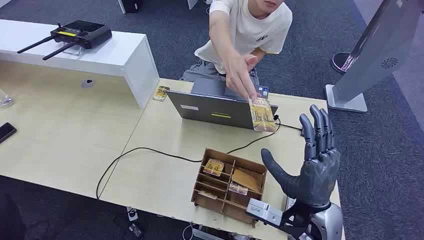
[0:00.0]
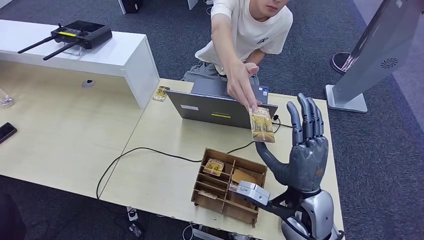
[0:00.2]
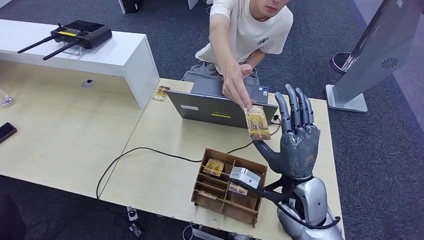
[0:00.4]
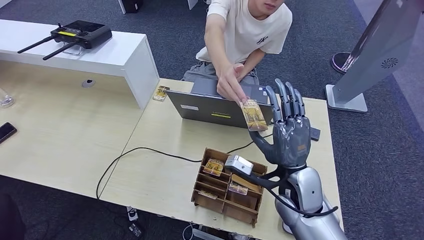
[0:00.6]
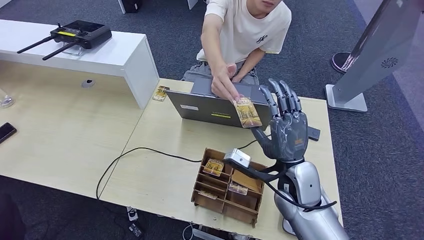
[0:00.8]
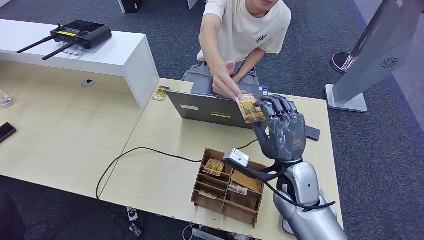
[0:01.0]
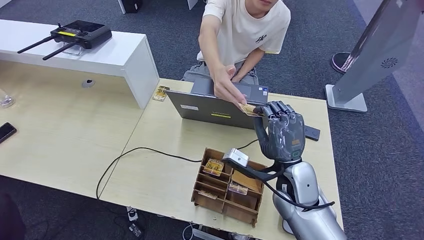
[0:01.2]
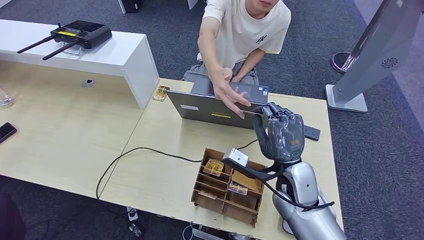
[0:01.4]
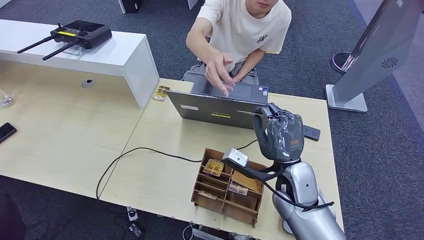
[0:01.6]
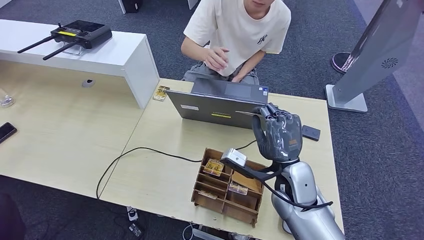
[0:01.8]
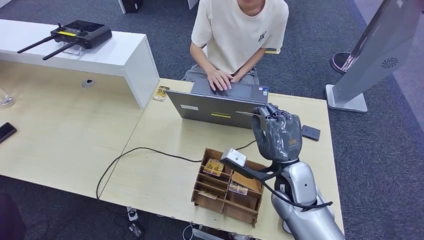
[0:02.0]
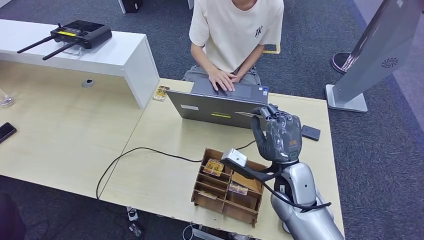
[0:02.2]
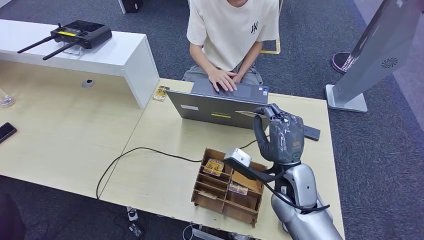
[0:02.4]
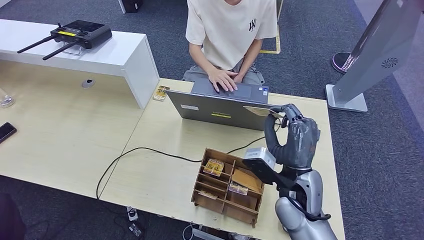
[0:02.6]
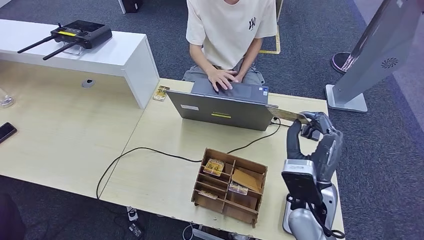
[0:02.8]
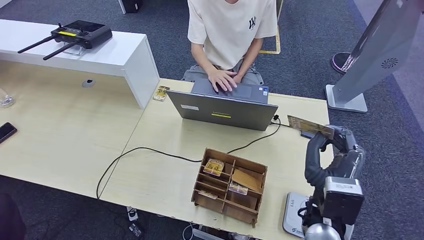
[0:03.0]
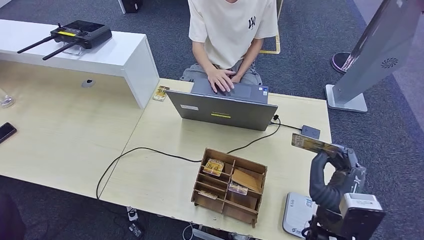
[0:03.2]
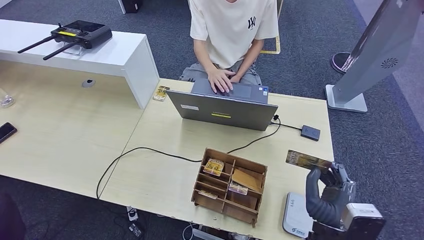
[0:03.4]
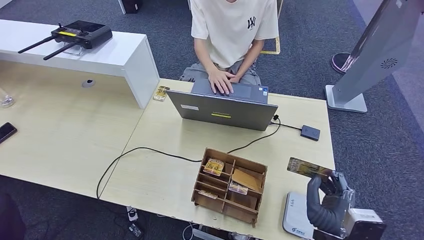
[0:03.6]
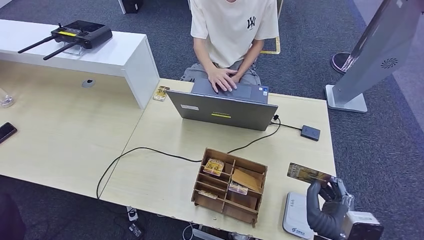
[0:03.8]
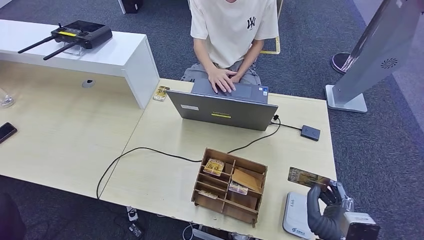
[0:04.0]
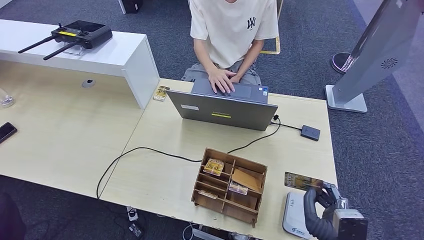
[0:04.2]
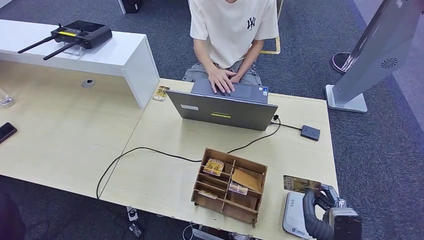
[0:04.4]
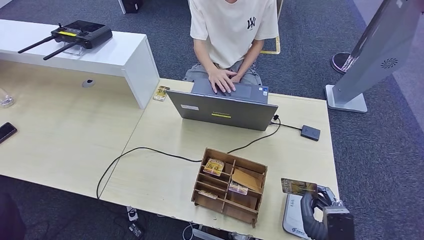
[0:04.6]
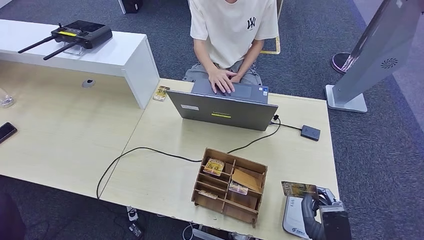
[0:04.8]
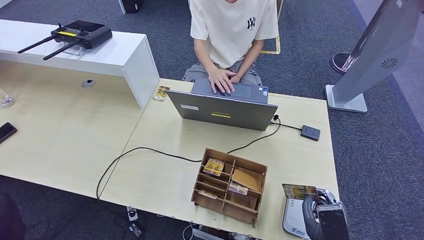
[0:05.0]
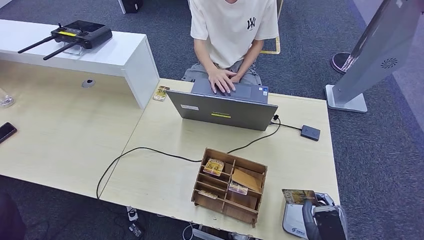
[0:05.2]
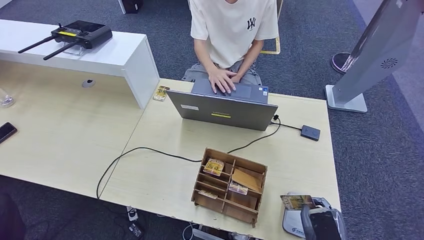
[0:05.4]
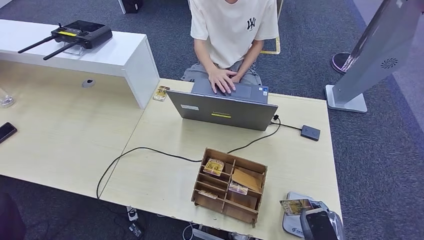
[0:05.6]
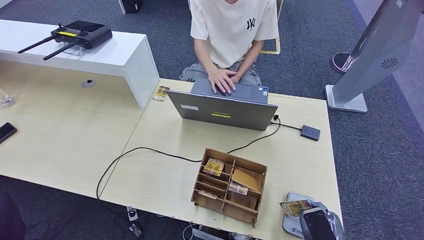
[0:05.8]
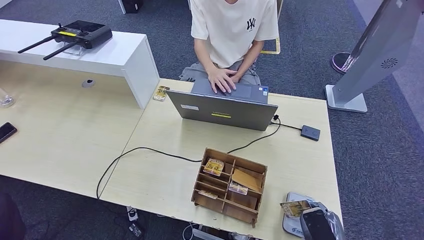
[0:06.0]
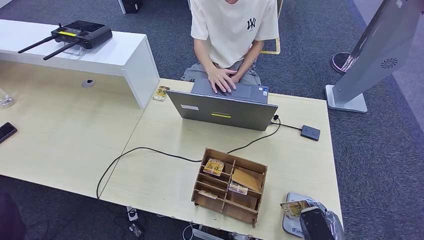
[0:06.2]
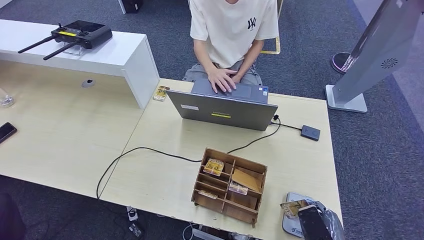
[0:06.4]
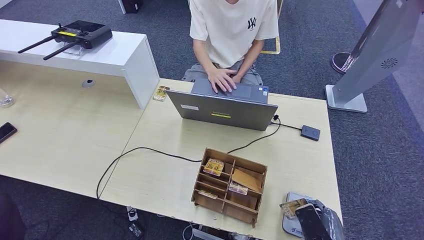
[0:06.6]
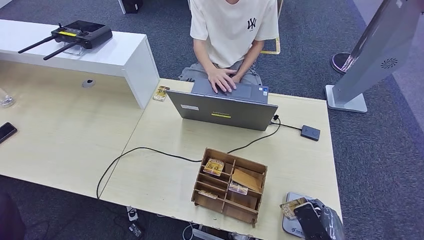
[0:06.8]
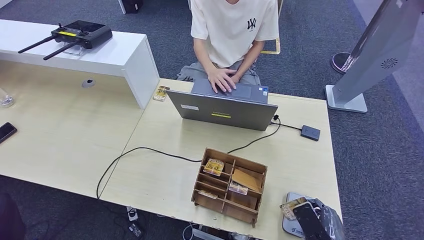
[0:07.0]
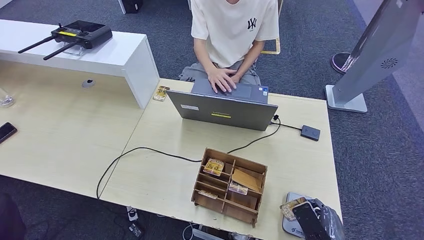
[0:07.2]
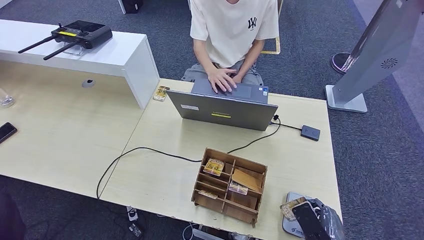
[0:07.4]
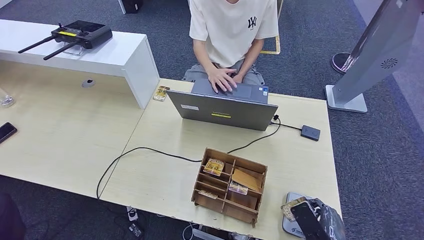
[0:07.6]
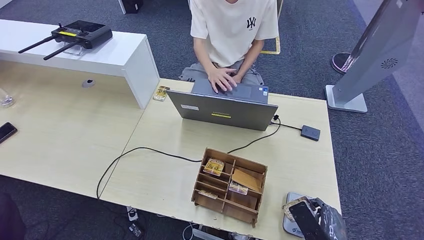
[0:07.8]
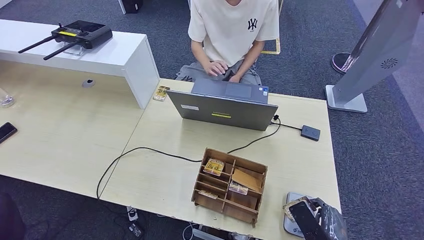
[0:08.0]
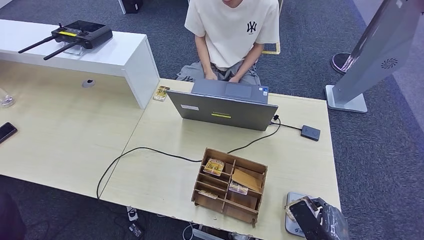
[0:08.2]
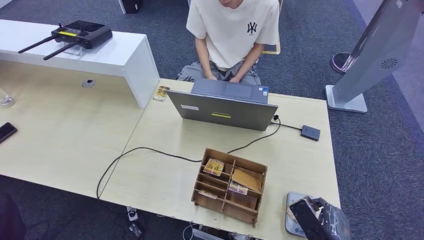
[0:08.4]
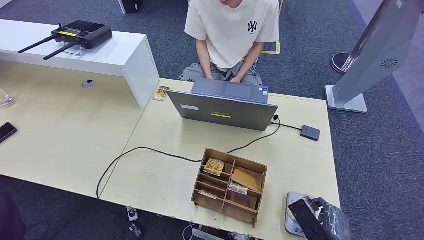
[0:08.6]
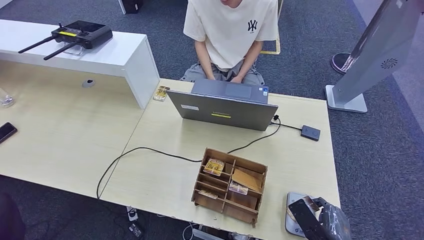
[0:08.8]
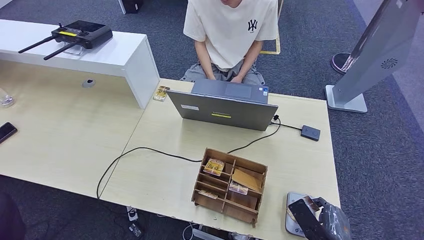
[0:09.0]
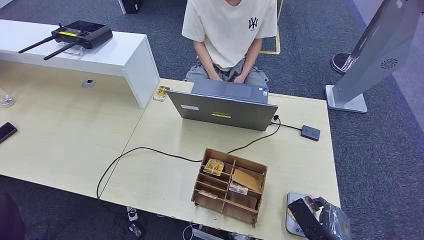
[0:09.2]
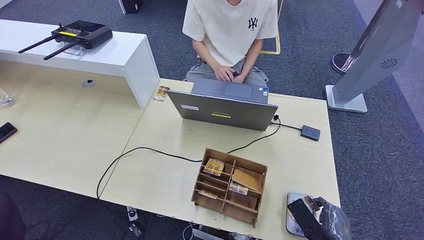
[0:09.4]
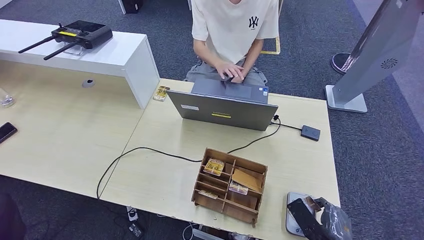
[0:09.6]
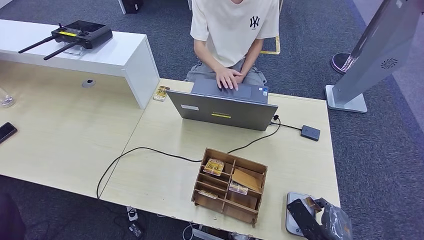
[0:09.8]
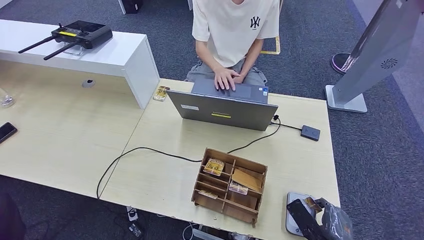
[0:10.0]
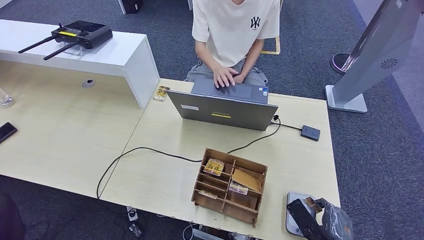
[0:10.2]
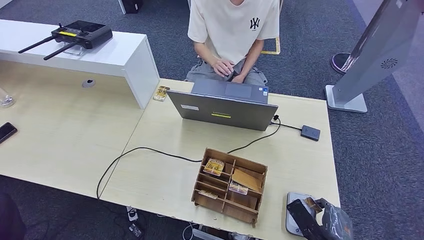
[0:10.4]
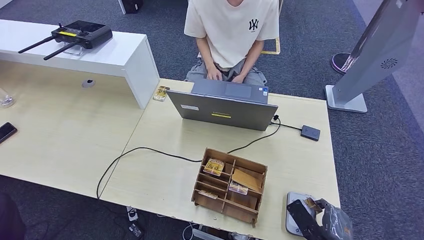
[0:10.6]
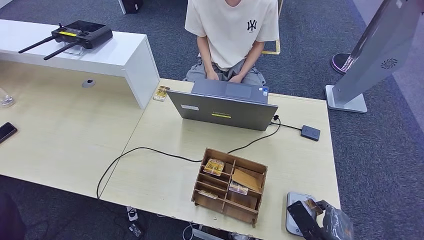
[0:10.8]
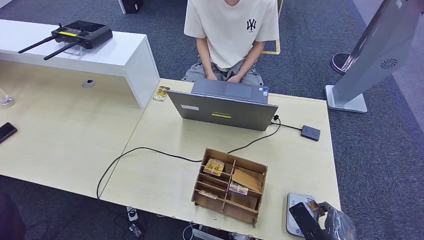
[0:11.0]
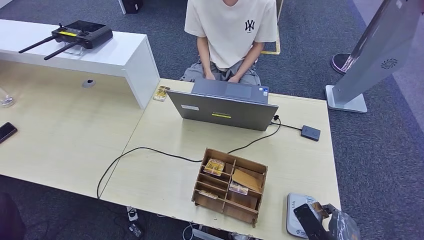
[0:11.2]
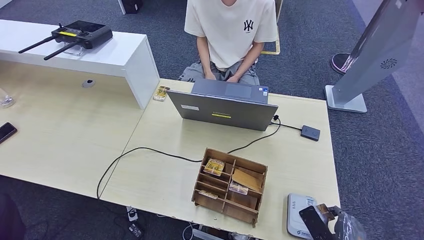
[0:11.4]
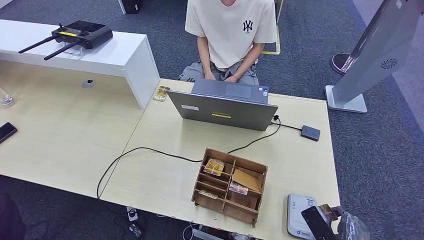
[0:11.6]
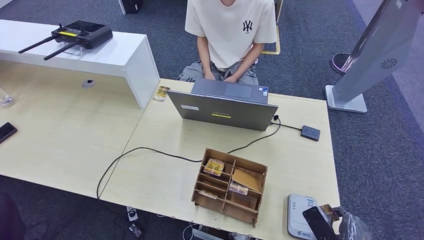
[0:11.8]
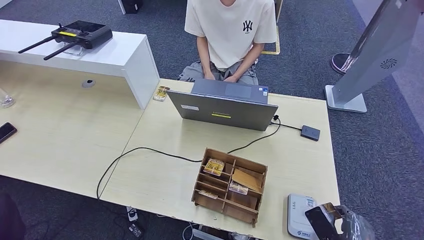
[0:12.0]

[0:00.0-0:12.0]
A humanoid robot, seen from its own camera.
Step, 0.0 to 2.2 s: Take the ID card from the person's hand.
1.6 to 3.0 s: The right hand travels backward by roughly 5 cm.
3.0 to 4.4 s: The right hand shifts approximately 15 cm backward and downward.
4.4 to 6.0 s: The right hand is displaced to the right by some 5 cm.
6.0 to 7.6 s: The hands stay close to where they were, moving slightly.
7.6 to 12.0 s: There are only small adjustments of the hands.

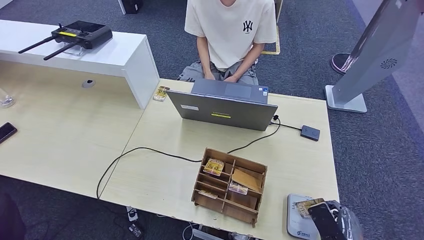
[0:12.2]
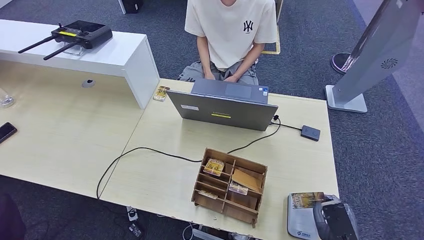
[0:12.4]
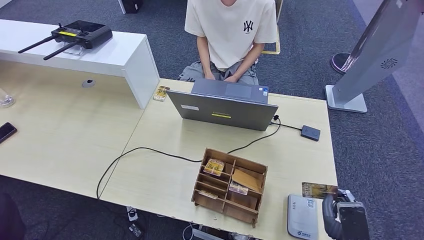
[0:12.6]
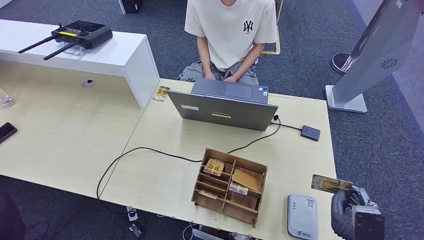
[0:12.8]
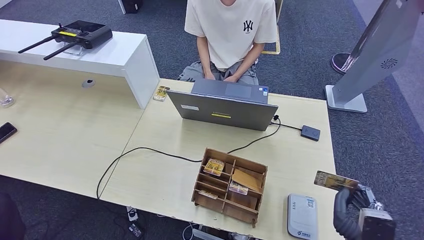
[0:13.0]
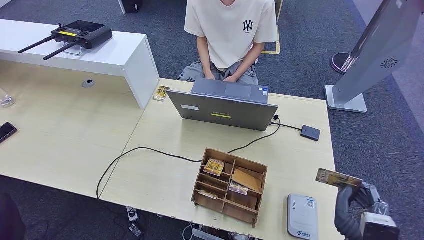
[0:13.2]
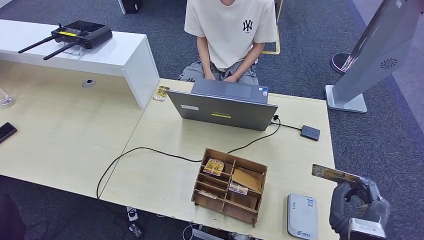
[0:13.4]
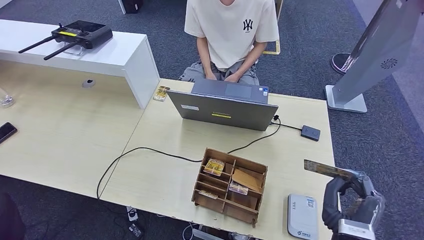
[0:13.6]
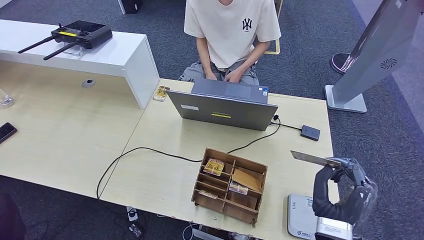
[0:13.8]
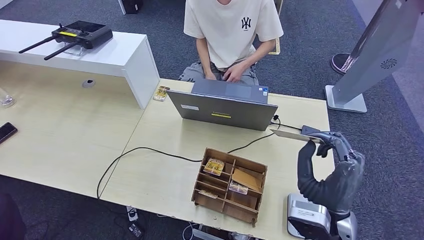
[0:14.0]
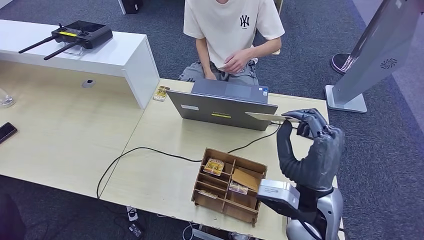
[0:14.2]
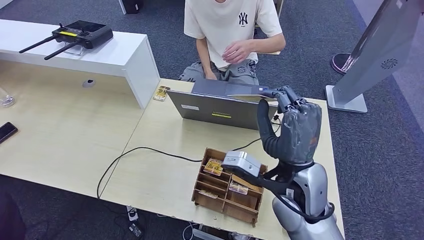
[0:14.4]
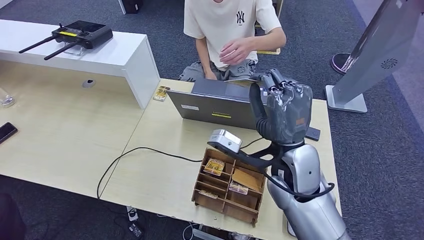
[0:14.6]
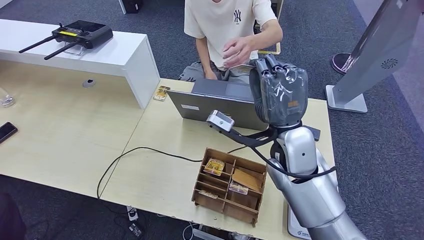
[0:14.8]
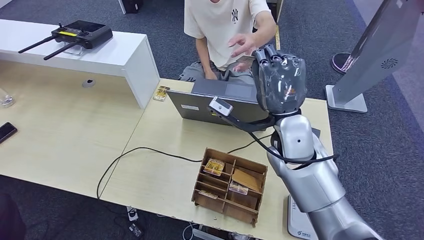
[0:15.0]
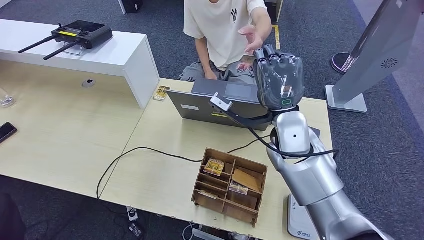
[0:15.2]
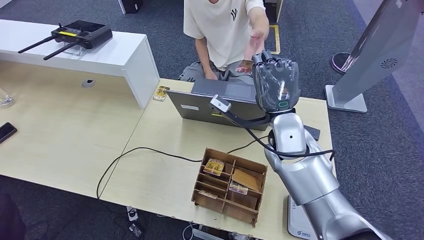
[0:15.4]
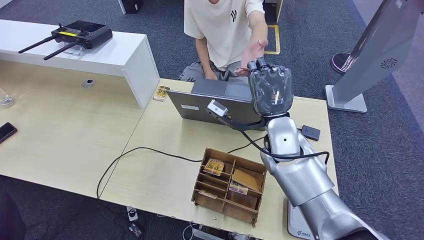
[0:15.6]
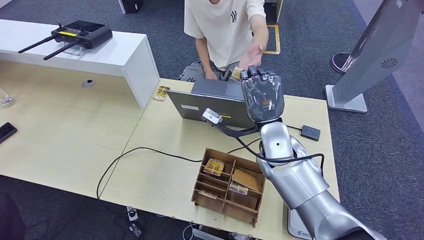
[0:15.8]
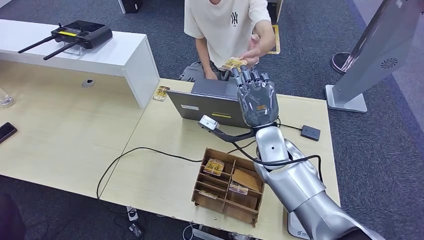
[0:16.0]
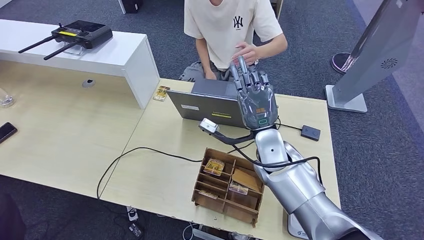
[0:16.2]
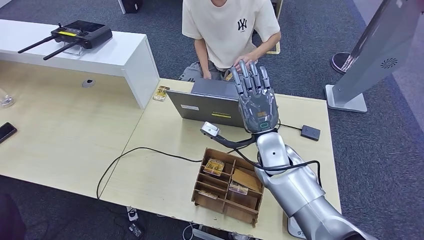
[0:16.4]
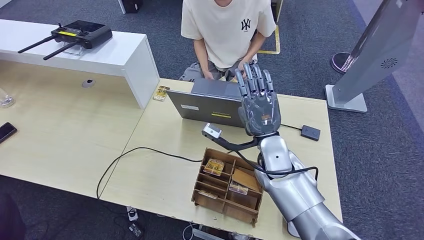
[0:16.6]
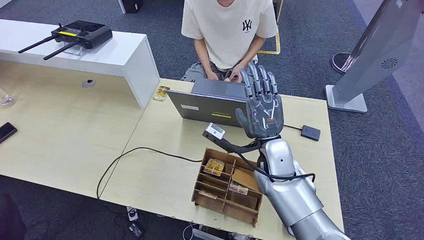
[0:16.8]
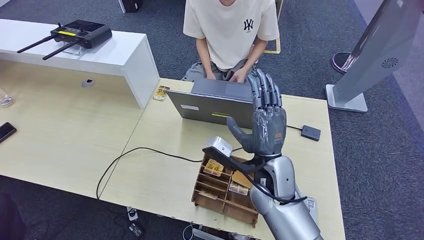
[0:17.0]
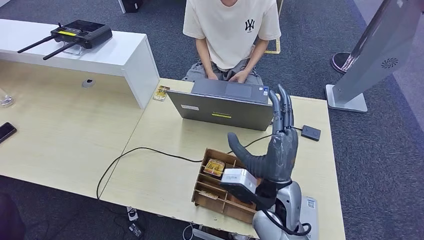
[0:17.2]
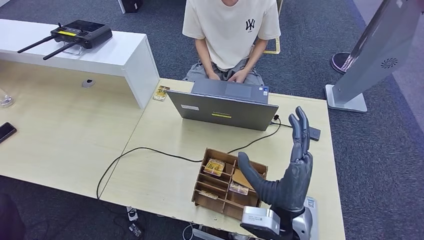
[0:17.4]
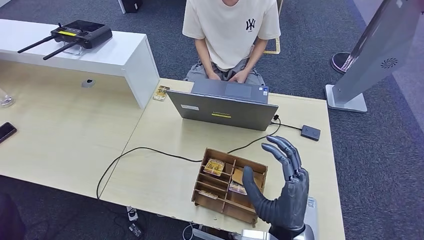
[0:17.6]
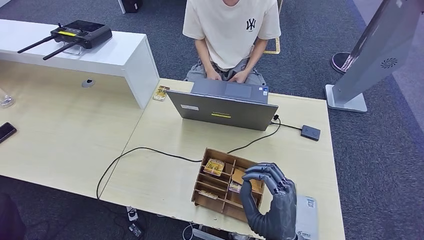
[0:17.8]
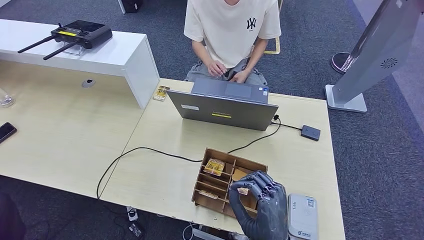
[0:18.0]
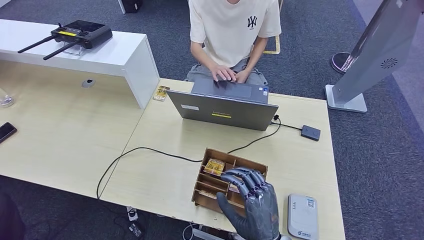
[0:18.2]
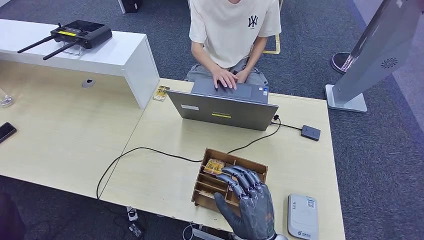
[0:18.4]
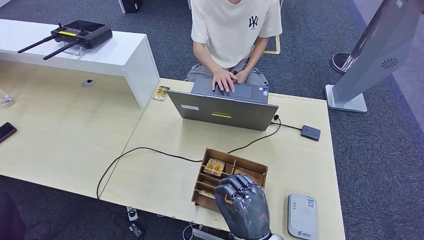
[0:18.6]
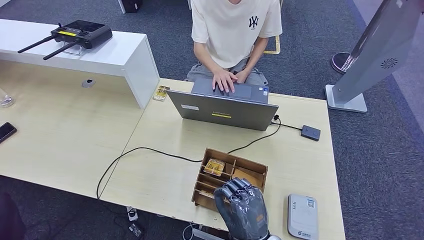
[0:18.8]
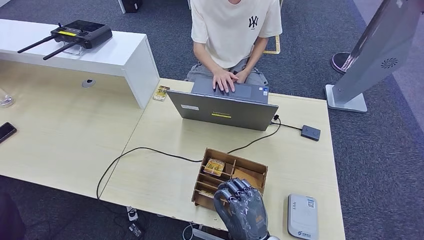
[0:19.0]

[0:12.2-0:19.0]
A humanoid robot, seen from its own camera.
Step, 14.0 to 17.2 s: Hand the ID card to the person.
12.2 to 13.6 s: The right hand shifts roughly 10 cm to the left and upward.
13.6 to 15.0 s: The left hand travels forward by some 5 cm, while the right hand goes approximately 25 cm forward, upward and to the left.
15.0 to 16.2 s: The right hand is displaced downward by approximately 10 cm.
16.2 to 17.6 s: The right hand shifts approximately 20 cm backward.
17.6 to 19.0 s: The right hand travels downward by approximately 10 cm.
